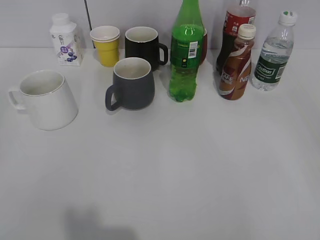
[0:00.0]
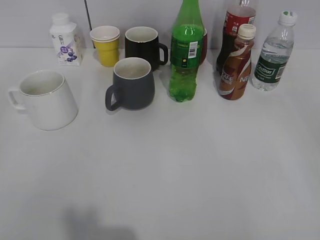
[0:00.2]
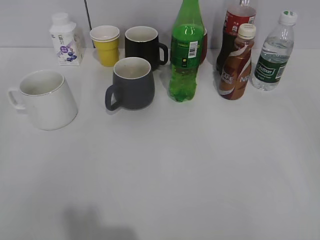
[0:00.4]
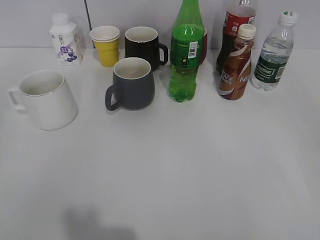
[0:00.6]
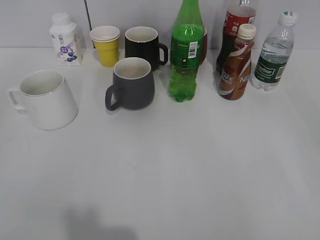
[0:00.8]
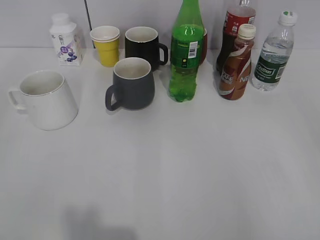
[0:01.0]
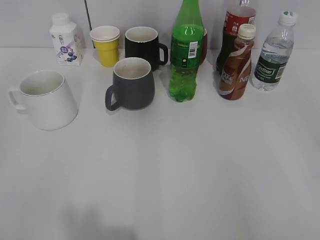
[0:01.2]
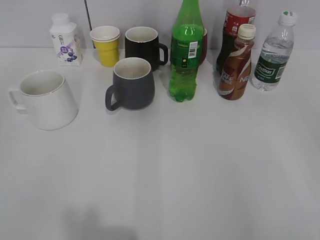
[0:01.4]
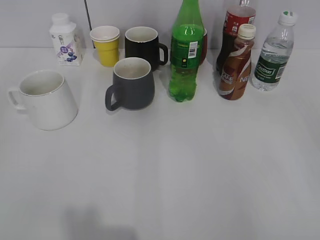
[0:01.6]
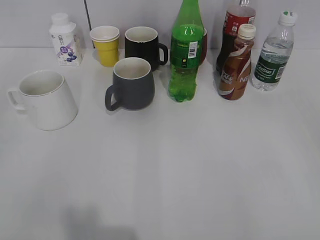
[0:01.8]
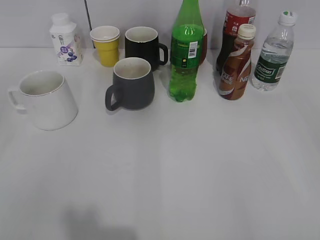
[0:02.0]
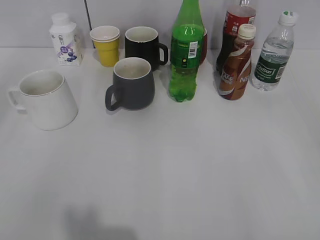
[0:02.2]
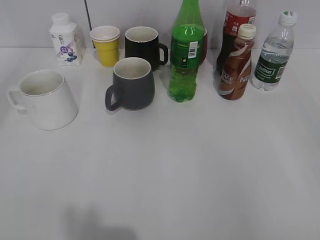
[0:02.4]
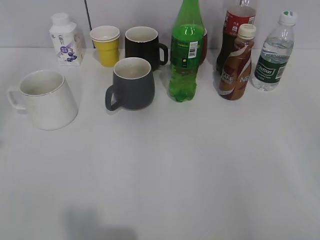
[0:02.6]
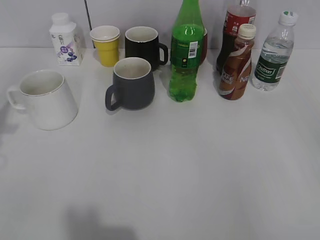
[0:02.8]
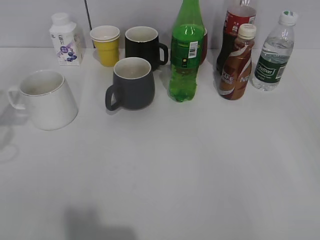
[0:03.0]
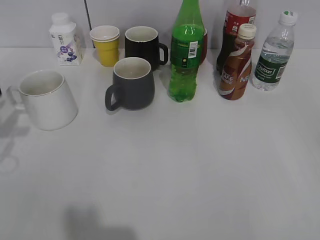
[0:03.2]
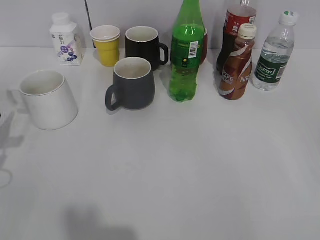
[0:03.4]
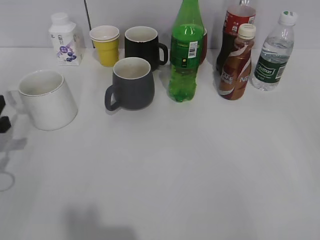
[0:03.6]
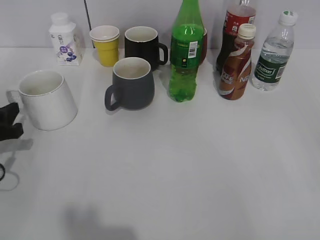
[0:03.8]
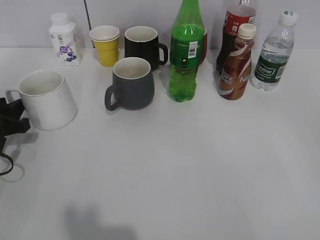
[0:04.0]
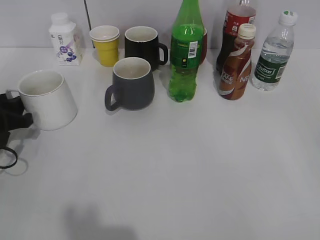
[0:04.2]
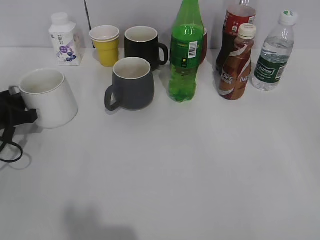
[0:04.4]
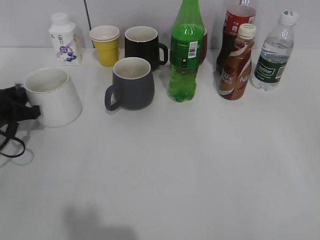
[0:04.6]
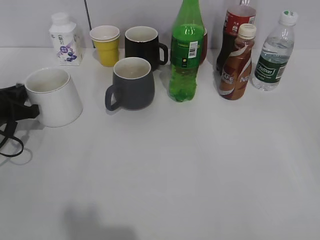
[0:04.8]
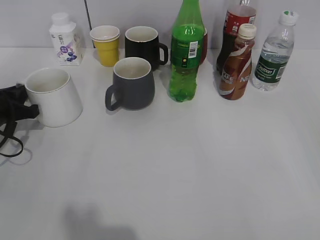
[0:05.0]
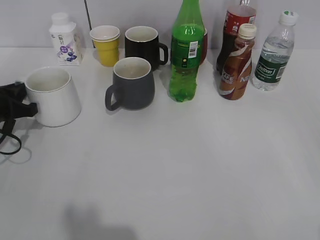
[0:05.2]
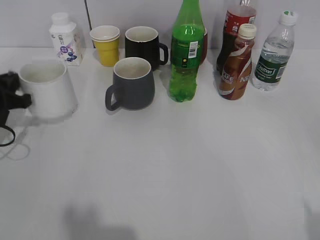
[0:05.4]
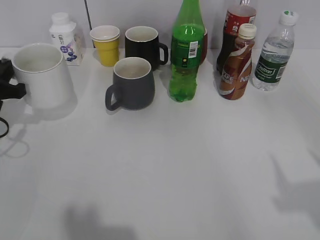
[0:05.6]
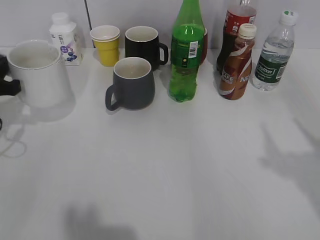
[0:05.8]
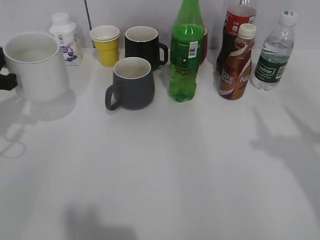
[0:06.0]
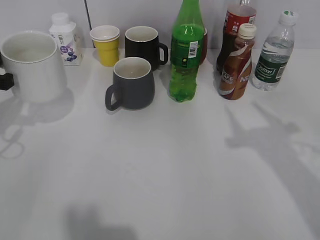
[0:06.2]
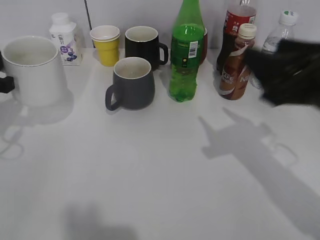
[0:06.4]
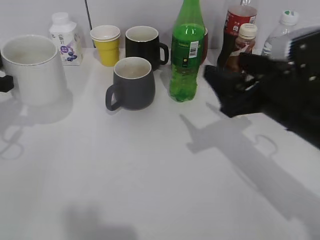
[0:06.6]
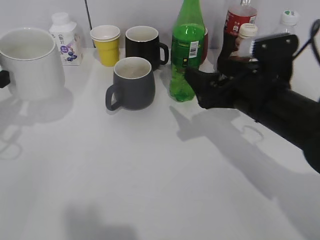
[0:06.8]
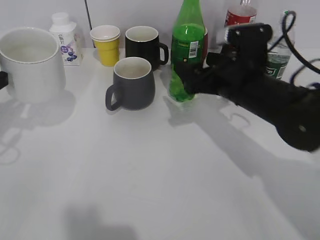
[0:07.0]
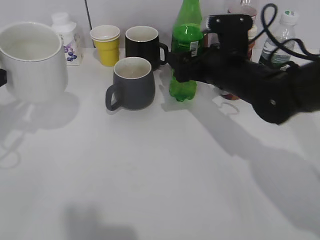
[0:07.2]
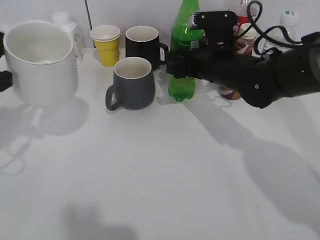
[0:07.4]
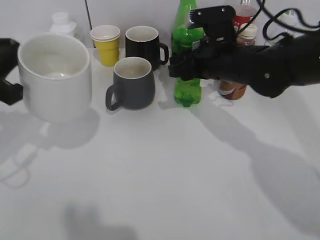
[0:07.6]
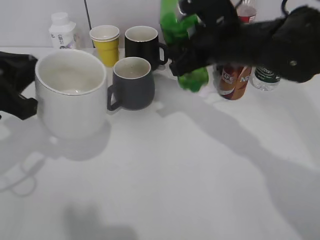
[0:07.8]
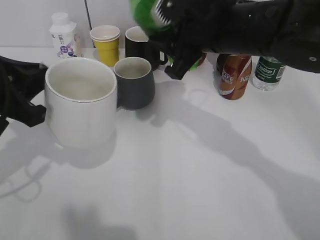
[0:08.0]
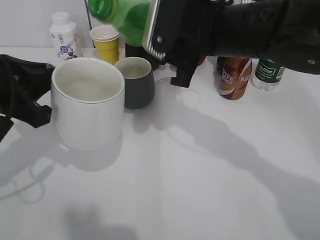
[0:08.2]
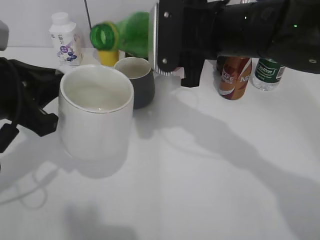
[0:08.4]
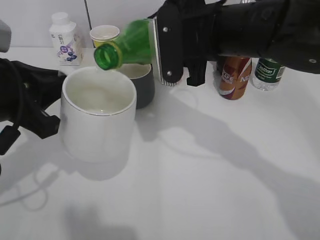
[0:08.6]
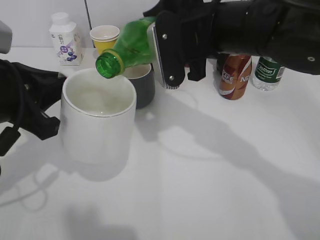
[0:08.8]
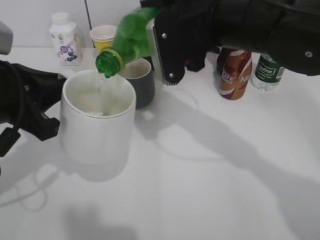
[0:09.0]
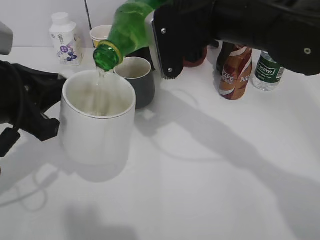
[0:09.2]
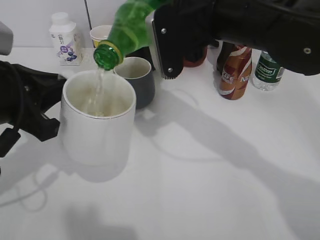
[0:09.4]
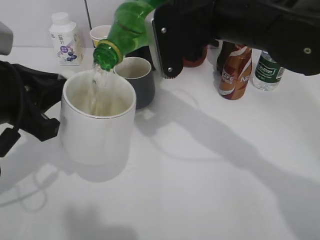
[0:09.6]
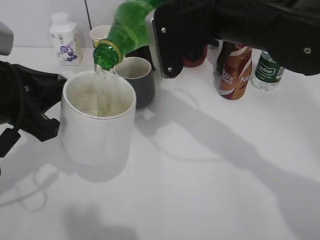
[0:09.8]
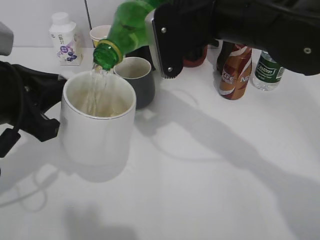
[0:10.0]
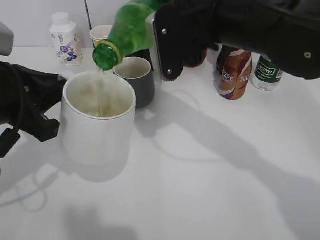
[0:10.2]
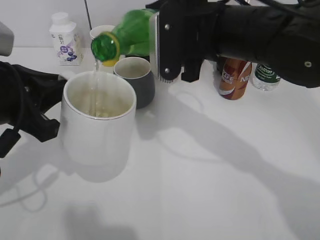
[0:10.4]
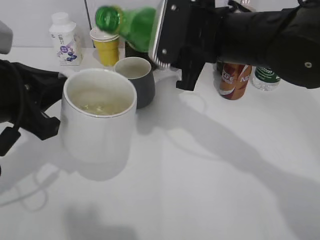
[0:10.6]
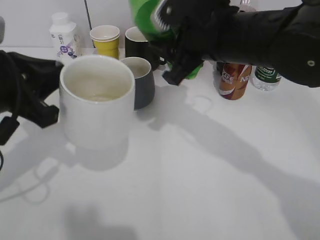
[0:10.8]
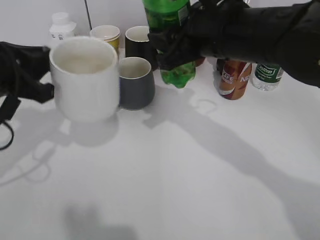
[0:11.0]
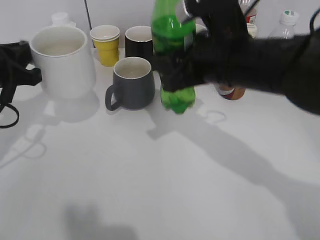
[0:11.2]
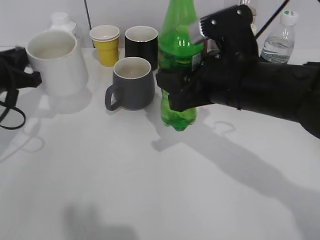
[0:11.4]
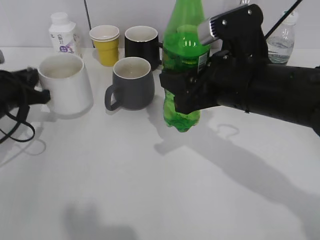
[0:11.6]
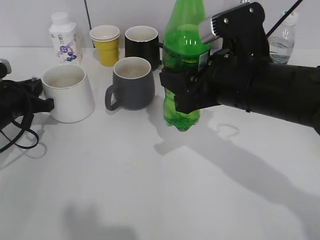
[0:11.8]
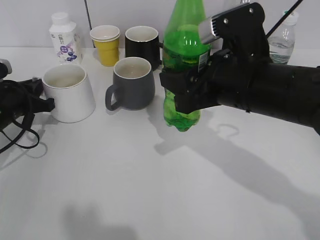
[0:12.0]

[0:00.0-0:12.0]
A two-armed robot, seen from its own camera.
Step, 0:01.8 to 0:04.8: Grasp the white cup with left gripper.
Step, 0:05.0 to 0:06.0: Lift the white cup with left gripper.
Step, 0:06.4 to 0:07.4: Grasp the bottle with sprite with right gripper.
Step, 0:07.6 to 0:10.6: Pour the sprite from bottle to cup with right gripper.
0:01.6 to 0:03.0: The left gripper shifts approximately 25 cm forward.
0:03.0 to 0:04.4: The left gripper heads downward, covering approximately 15 cm.
0:04.4 to 0:06.0: The right gripper goes about 15 cm forward and upward; the left gripper heads upward, covering roughly 10 cm, and closes up.
0:06.0 to 0:07.6: The right gripper goes approximately 35 cm forward, downward and to the left, and closes up. The left gripper travels backward, upward and to the right by some 10 cm.
0:07.6 to 0:09.0: The right gripper shifts about 10 cm upward and backward. The left gripper moves roughly 5 cm.
0:09.0 to 0:10.4: The grippers stay close to where they were, moving slightly.
0:10.4 to 0:12.0: The right gripper shifts approximately 5 cm backward. Meanwhile the left gripper moves downward, forward and to the left, approximately 20 cm.

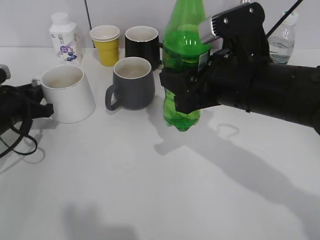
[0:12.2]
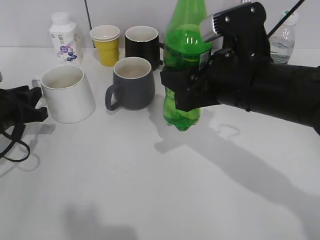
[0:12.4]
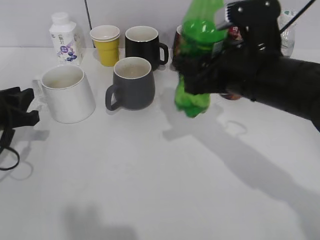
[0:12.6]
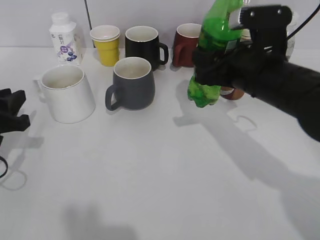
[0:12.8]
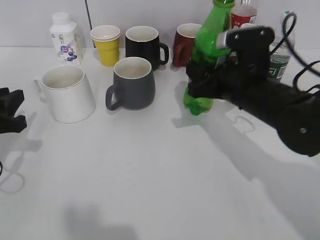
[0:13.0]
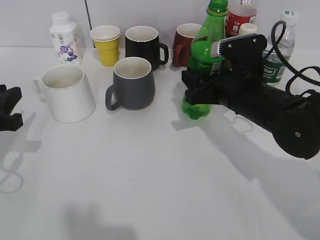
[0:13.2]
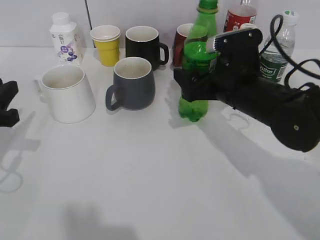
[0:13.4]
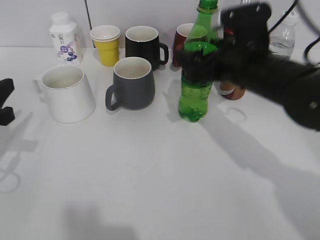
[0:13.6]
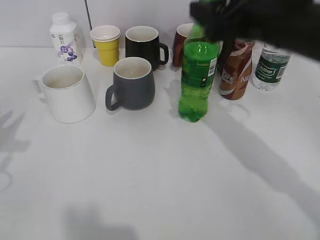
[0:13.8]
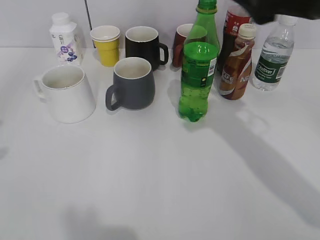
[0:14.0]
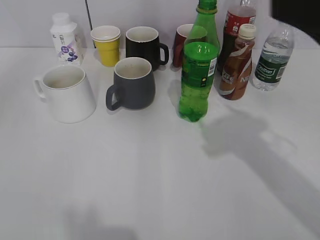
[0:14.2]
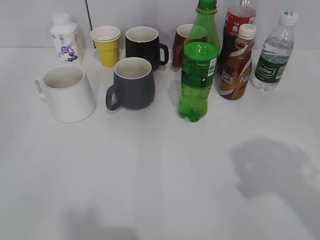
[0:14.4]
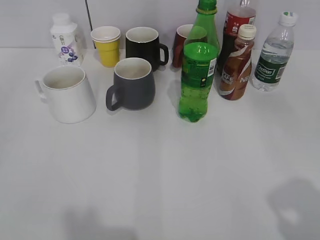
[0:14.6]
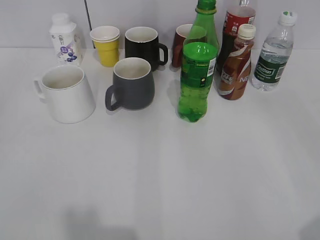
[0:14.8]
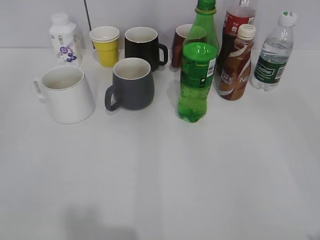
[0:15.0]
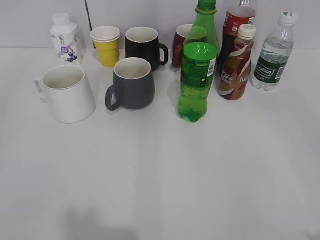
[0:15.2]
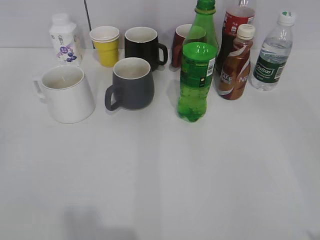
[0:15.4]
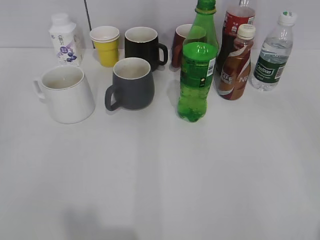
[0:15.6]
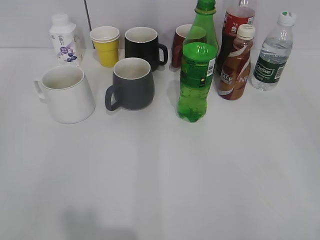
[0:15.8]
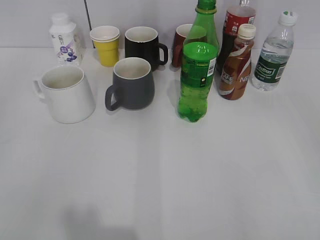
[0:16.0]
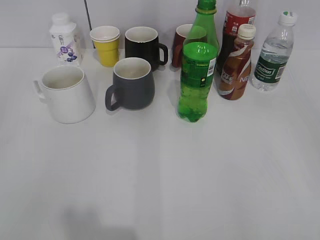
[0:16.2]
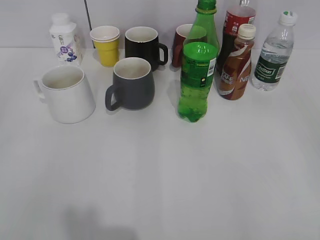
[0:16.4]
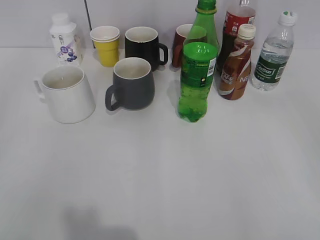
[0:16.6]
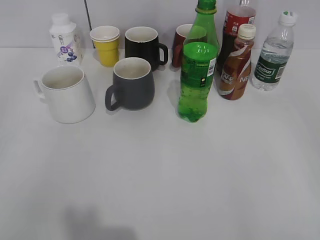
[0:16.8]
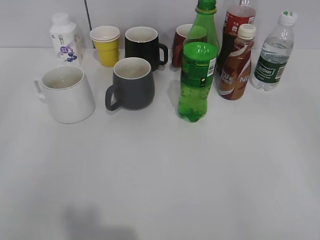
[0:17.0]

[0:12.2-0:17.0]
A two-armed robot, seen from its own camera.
Step, 0:12.4 to 0:13.6: Place the sprite bottle on the table with right gripper.
0:12.2 to 0:13.8: The left gripper goes about 15 cm backward and upward; the right gripper shifts by roughly 5 cm, and opens its fingers.
0:13.8 to 0:15.4: The right gripper is displaced backward and to the right by approximately 35 cm, while the left gripper shifts some 20 cm backward, and opens up.

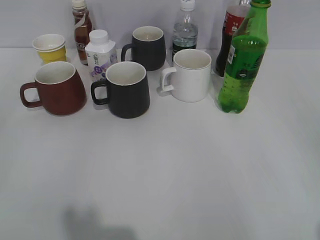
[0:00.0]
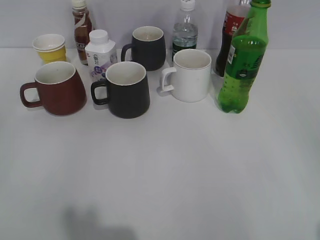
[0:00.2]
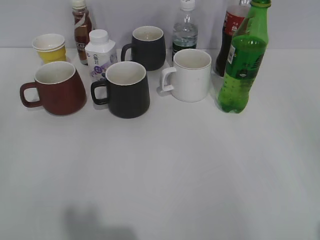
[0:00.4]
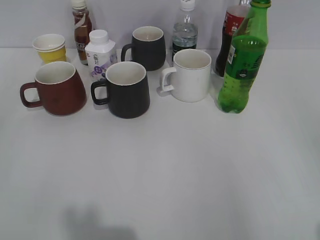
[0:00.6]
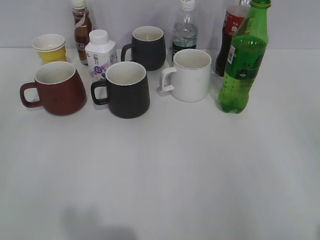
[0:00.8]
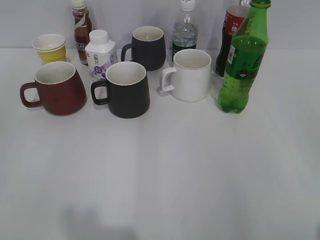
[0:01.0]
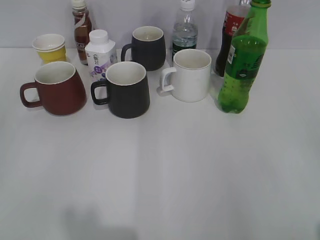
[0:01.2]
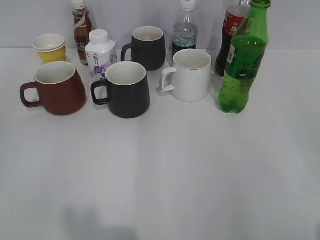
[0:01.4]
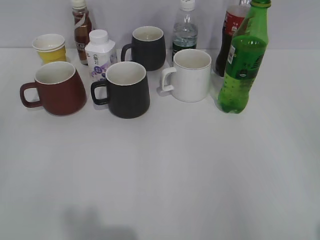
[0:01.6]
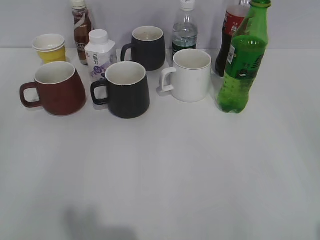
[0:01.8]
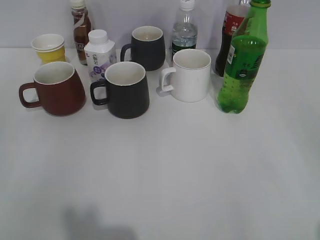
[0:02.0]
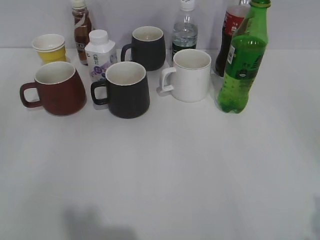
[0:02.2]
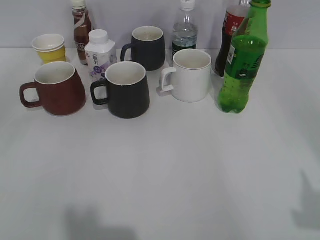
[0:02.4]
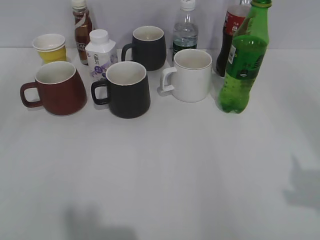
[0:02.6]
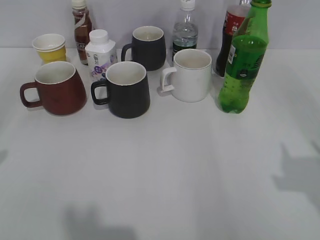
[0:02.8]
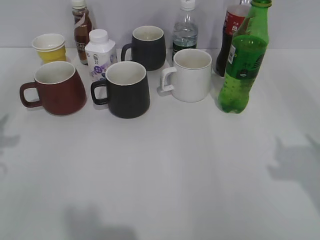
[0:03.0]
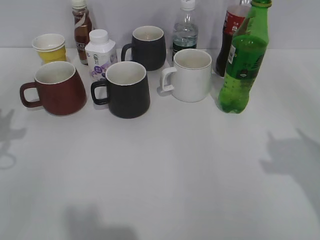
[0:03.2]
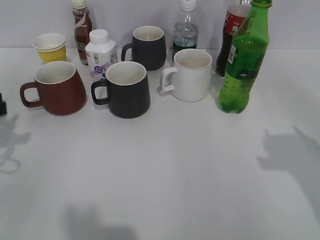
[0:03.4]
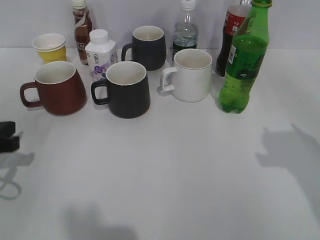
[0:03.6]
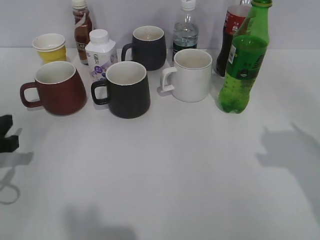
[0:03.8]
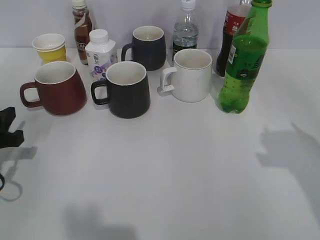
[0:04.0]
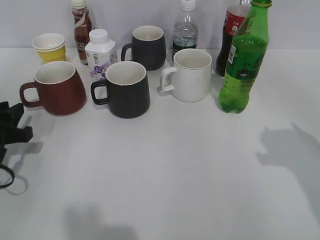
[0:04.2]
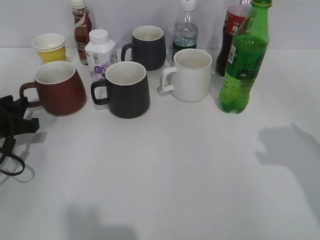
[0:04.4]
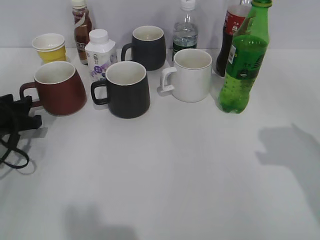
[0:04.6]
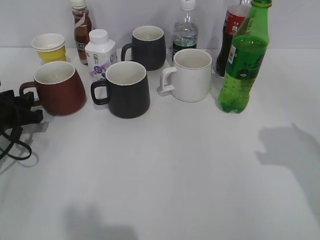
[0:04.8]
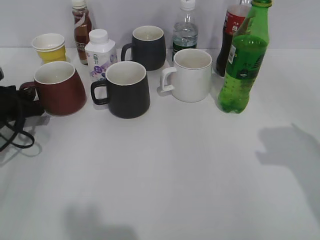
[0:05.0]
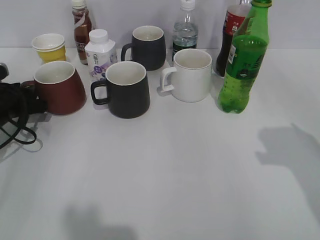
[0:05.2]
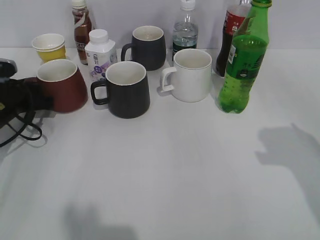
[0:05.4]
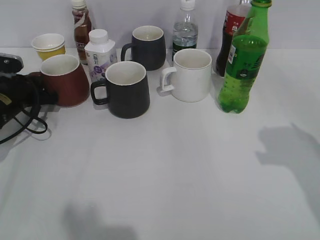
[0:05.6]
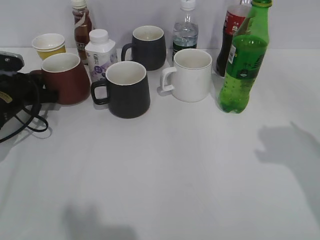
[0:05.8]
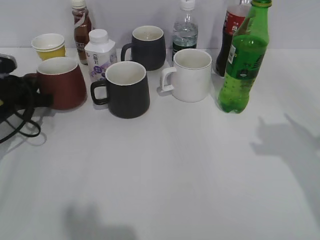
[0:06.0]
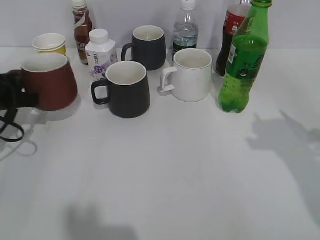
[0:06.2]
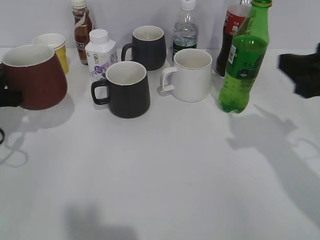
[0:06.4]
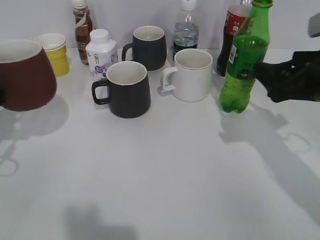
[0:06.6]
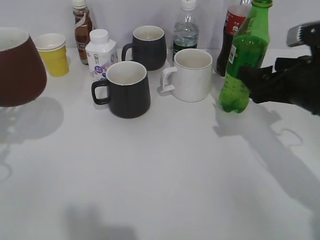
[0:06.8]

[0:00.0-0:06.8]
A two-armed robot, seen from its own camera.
Step, 0:01.8 to 0:05.4: Grasp the red cup with left gripper.
0:02.8 to 0:04.0: The left gripper shifts roughly 15 cm downward and forward.
0:04.0 to 0:05.4: The left gripper is displaced forward by approximately 10 cm.
0:05.4 to 0:06.8: The right gripper moves forward, downward and to the left, some 15 cm, and opens its fingers; the left gripper heads backward and upward, covering approximately 15 cm, and closes up.
